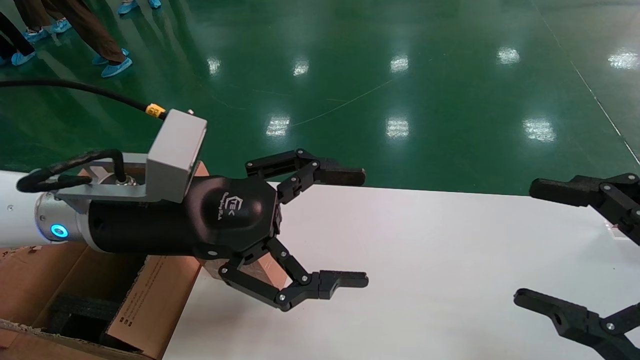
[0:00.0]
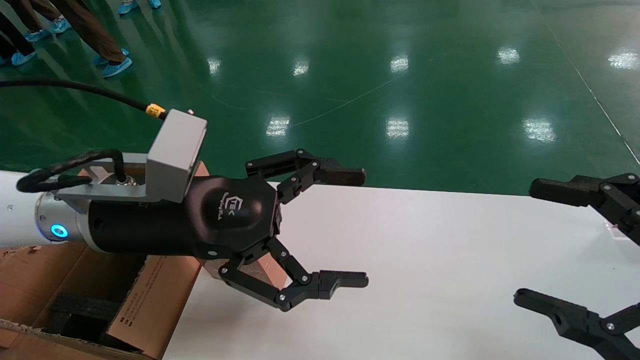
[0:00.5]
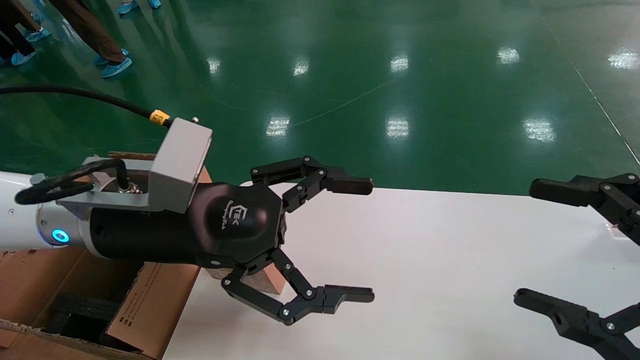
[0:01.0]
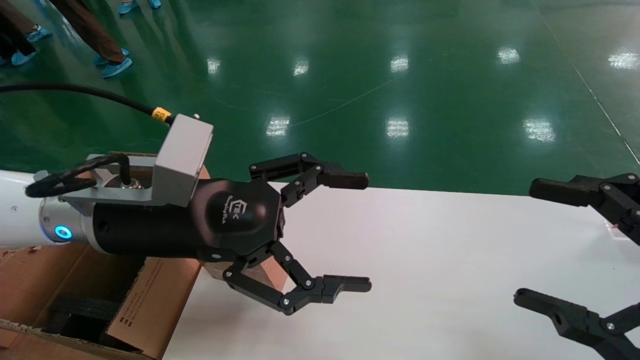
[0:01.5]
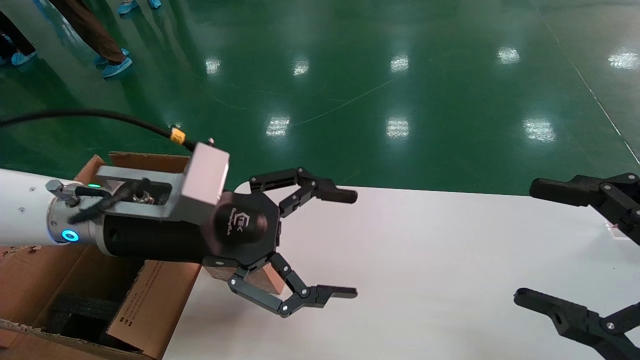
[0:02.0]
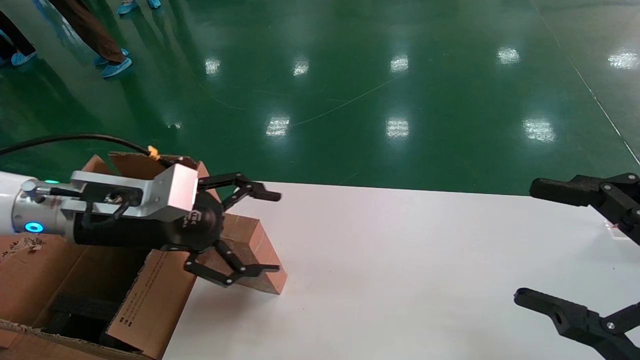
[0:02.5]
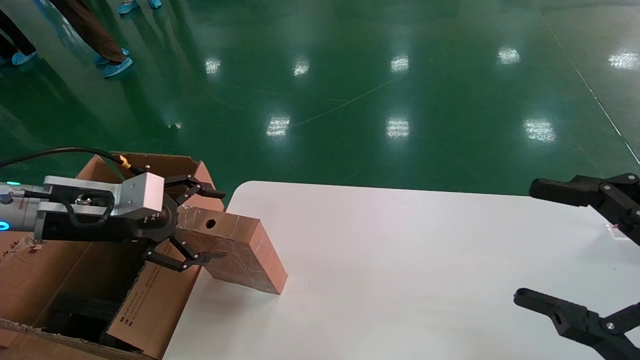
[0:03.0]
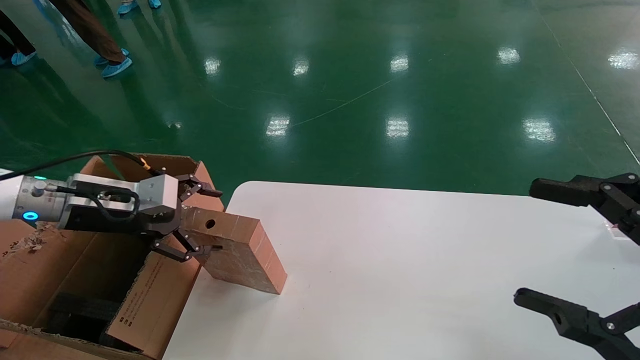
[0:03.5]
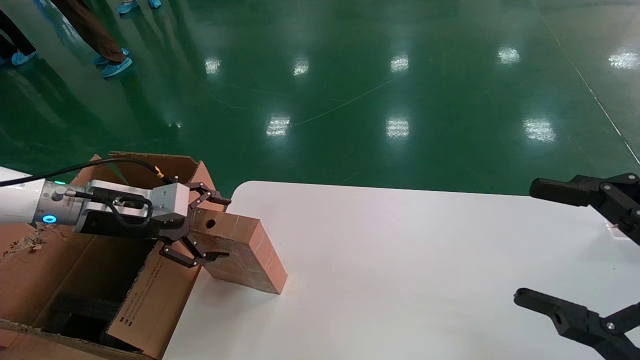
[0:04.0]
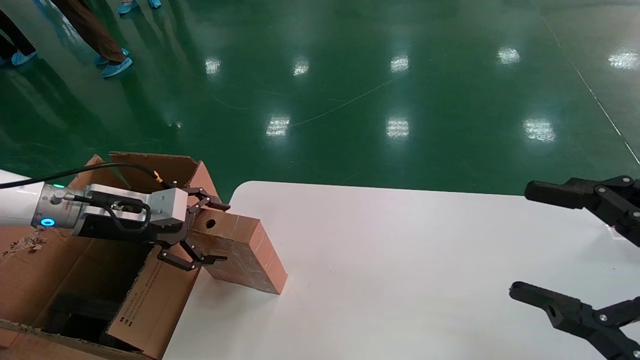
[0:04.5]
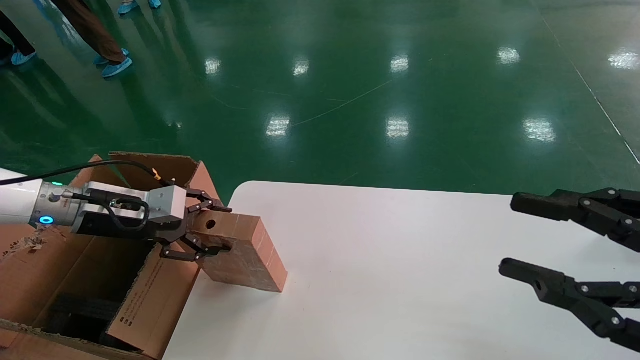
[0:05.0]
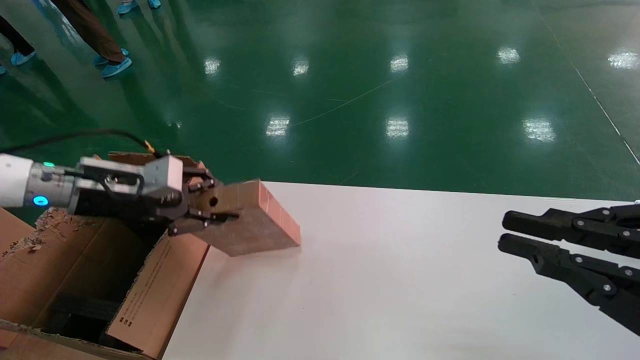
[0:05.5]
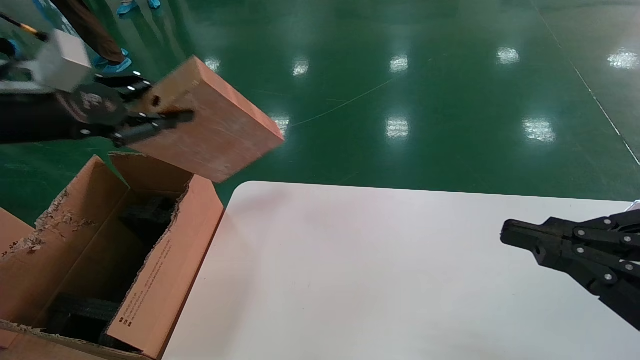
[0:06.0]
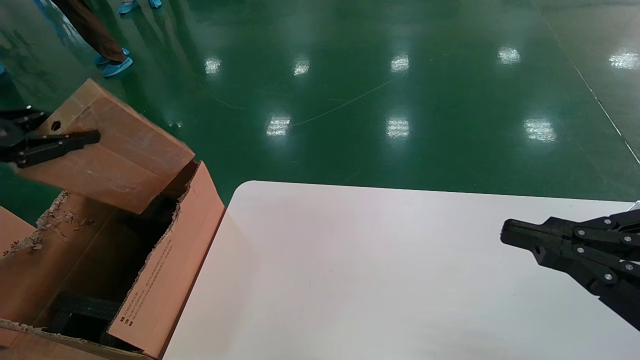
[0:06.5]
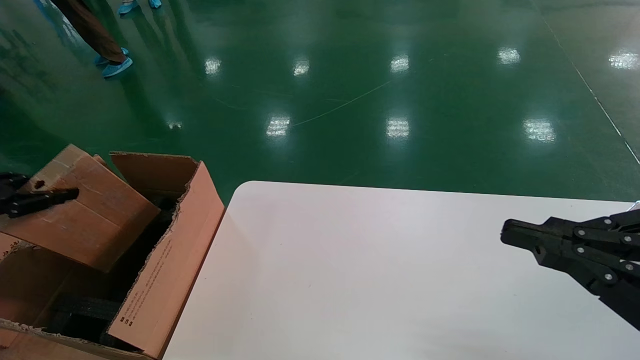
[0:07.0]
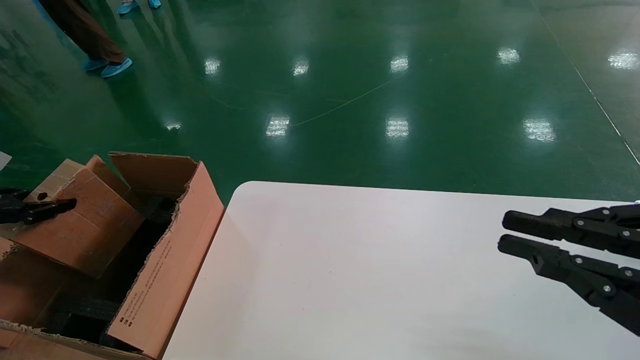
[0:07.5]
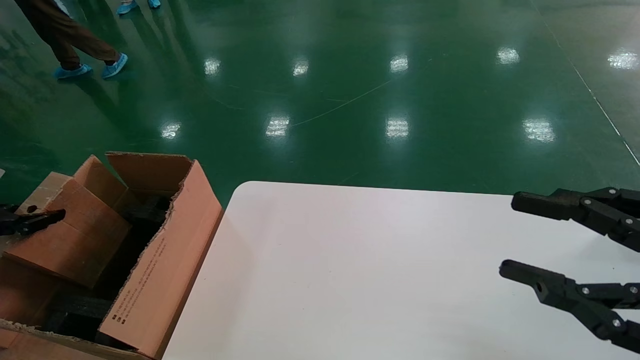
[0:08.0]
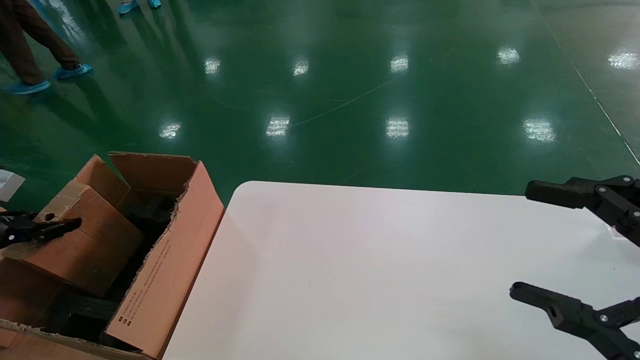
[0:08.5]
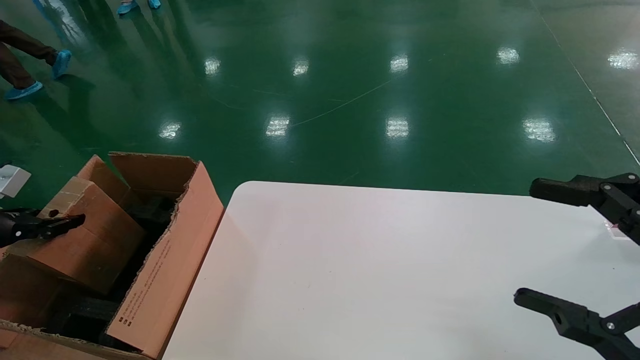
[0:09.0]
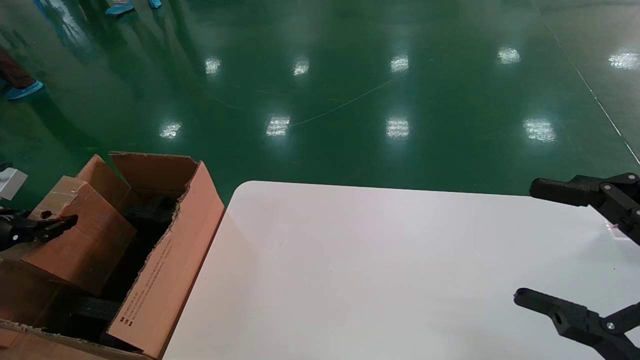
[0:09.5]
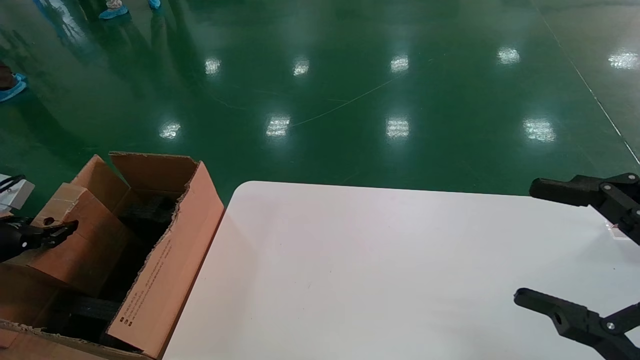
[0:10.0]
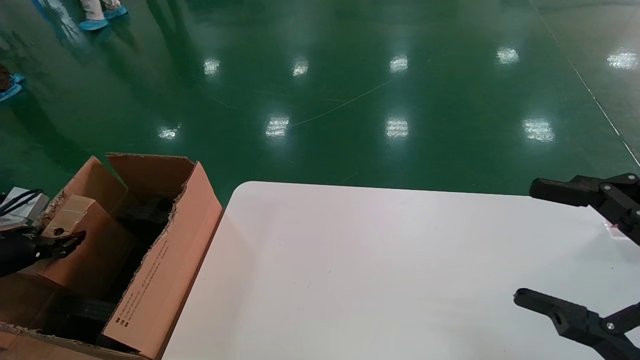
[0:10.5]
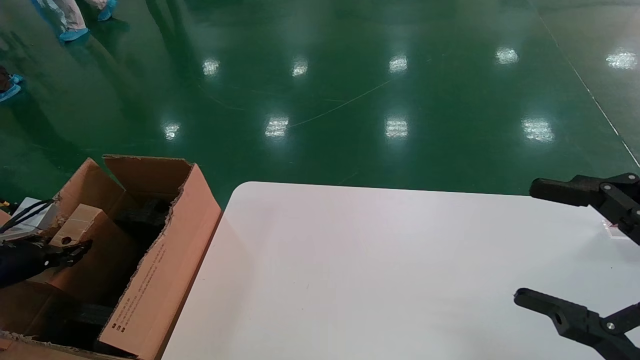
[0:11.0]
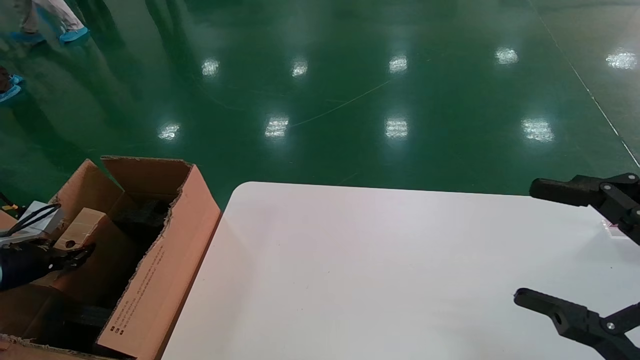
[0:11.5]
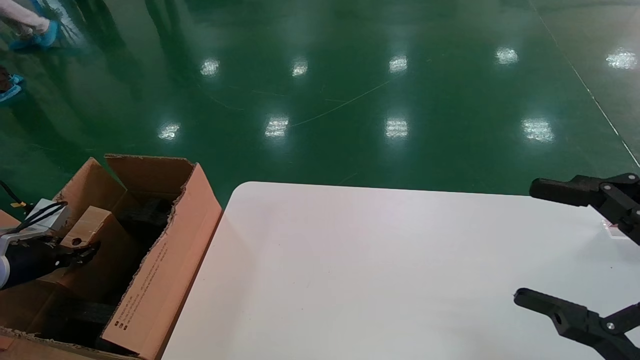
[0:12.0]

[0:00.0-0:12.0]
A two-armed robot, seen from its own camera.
Task of the whole recording: put the box on the table into the big box.
Step, 0:02.0 to 0:05.5: Pick up the mouse and the power cord paper box.
0:00.0 to 0:02.0: There are only small adjustments of the grippers.
0:02.0 to 0:04.0: The left gripper heads to the left and forward, covering some 20 cm.
0:04.0 to 0:06.0: The left gripper goes some 15 cm upward, to the left and backward, and closes its fingers. Meanwhile the right gripper closes up.
0:06.0 to 0:08.0: The left gripper shifts roughly 25 cm to the left and downward; the right gripper opens up.
0:08.0 to 0:10.0: The right gripper opens, while the left gripper is displaced to the right by approximately 5 cm.
0:10.0 to 0:12.0: The left gripper heads downward, covering about 5 cm.

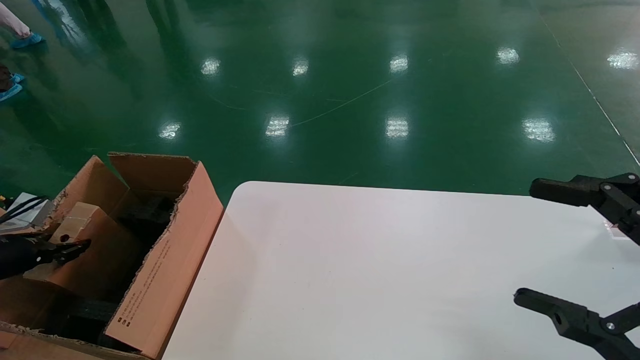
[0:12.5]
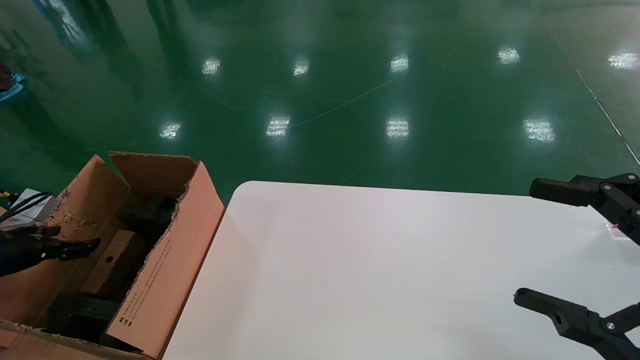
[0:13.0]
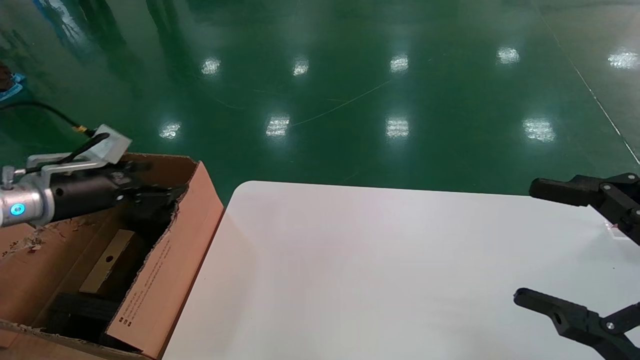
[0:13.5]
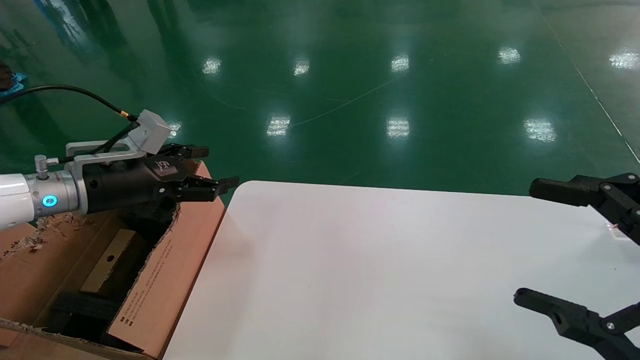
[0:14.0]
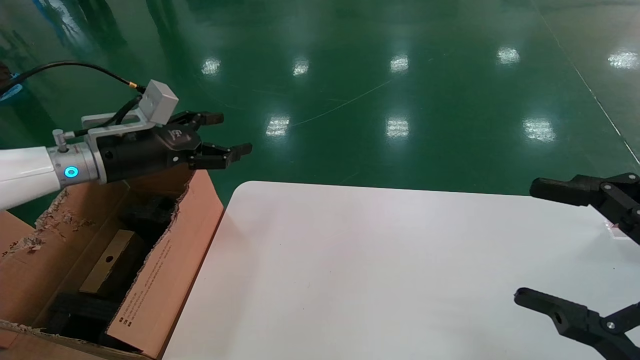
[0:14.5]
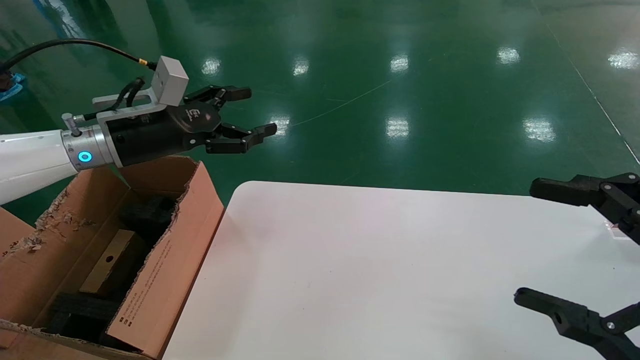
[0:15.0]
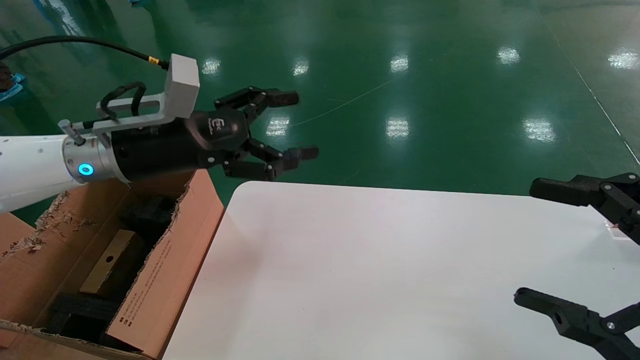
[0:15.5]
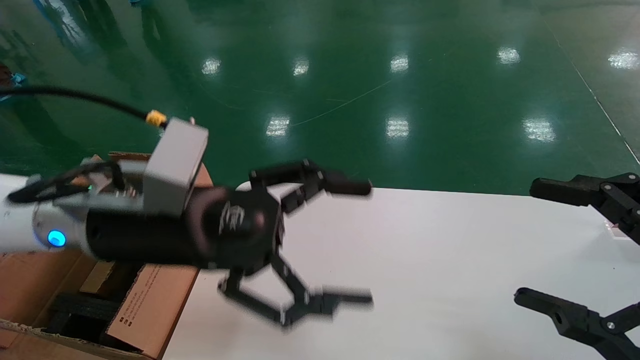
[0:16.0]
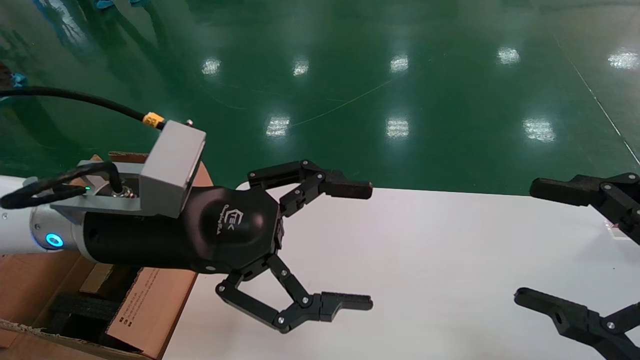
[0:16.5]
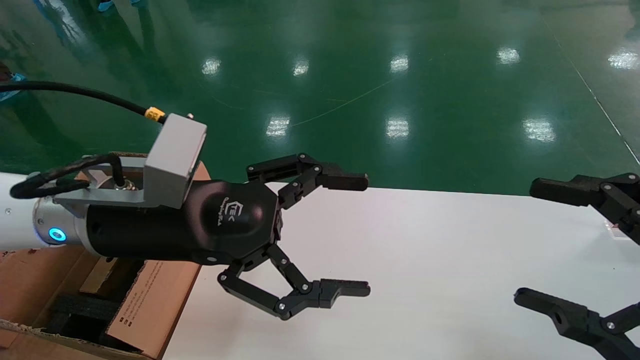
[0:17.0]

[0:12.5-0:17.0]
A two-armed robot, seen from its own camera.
Task of the whole recording: put the box on the table into the big box.
0:12.5 to 0:14.5: The left gripper heads to the right, upward and forward, covering some 25 cm, and opens up.
0:14.5 to 0:17.0: The left gripper moves to the right and backward, approximately 25 cm.
